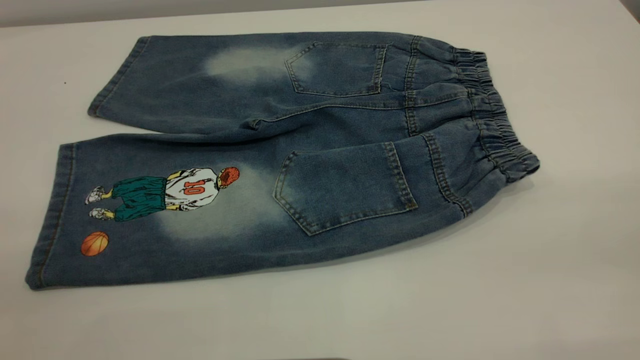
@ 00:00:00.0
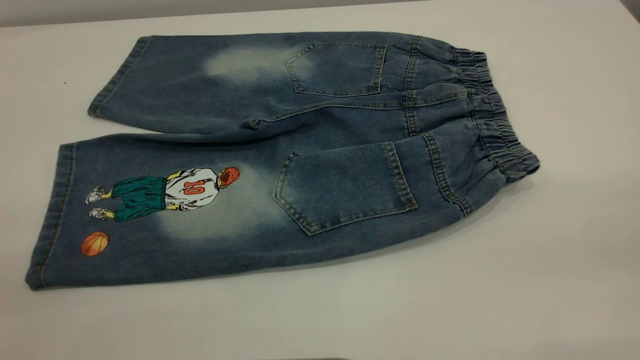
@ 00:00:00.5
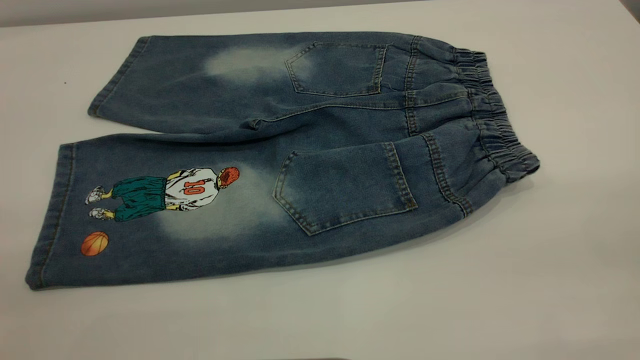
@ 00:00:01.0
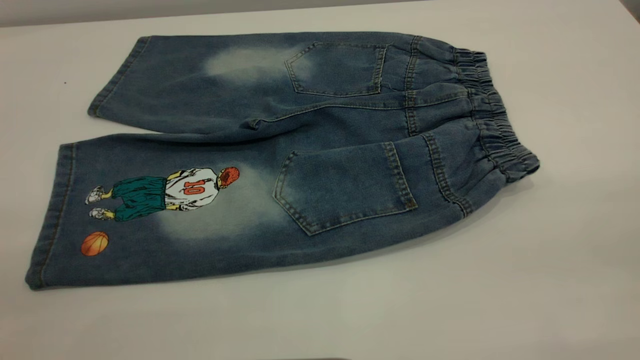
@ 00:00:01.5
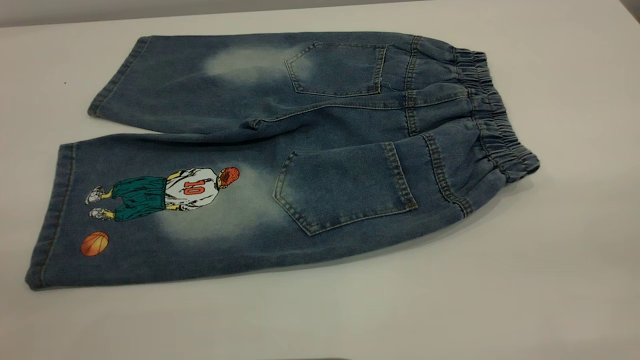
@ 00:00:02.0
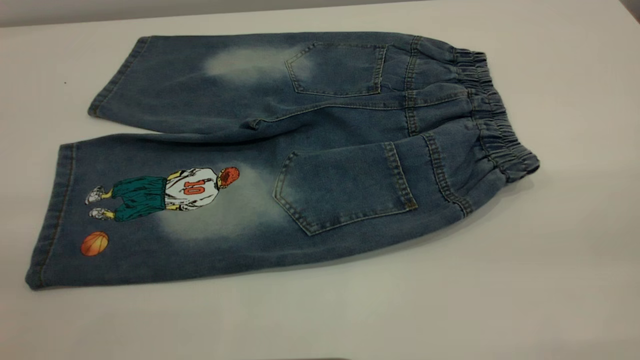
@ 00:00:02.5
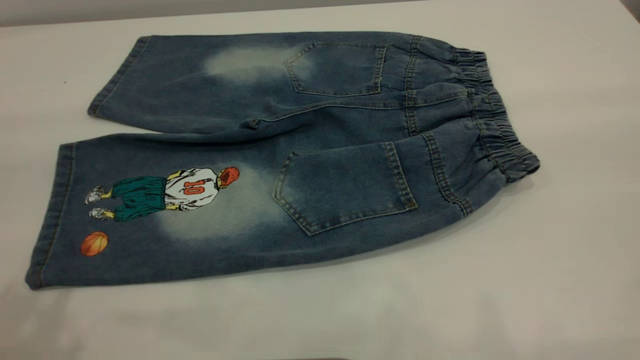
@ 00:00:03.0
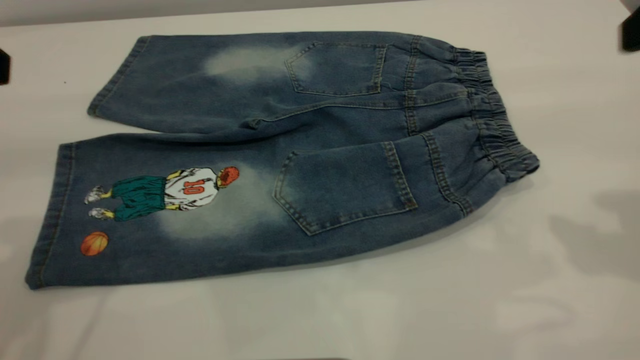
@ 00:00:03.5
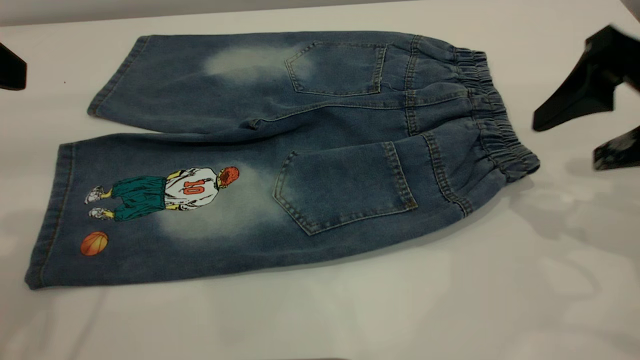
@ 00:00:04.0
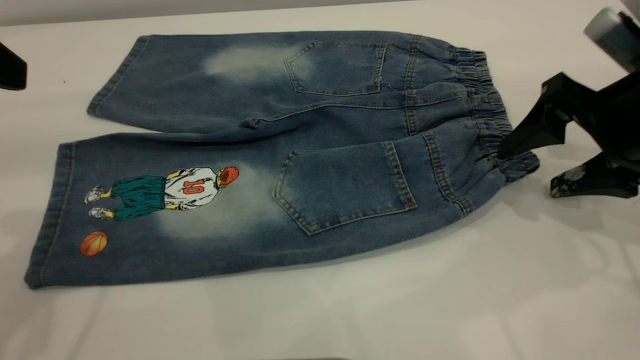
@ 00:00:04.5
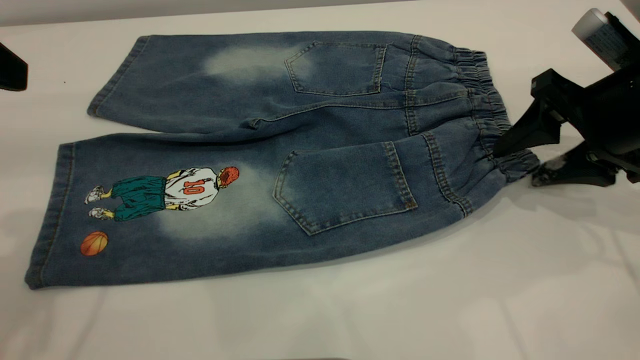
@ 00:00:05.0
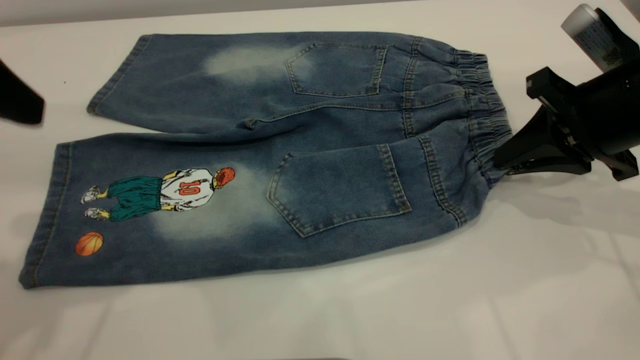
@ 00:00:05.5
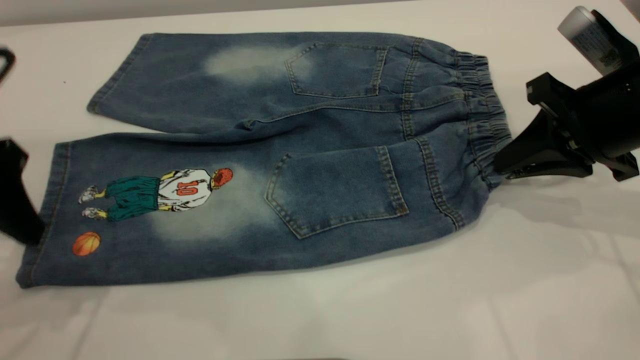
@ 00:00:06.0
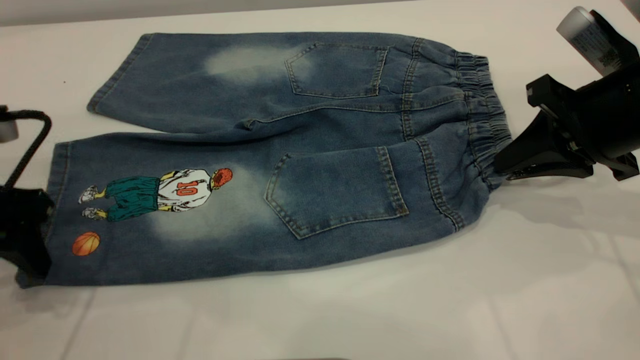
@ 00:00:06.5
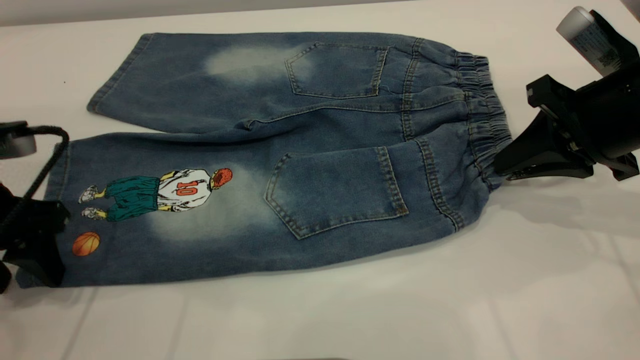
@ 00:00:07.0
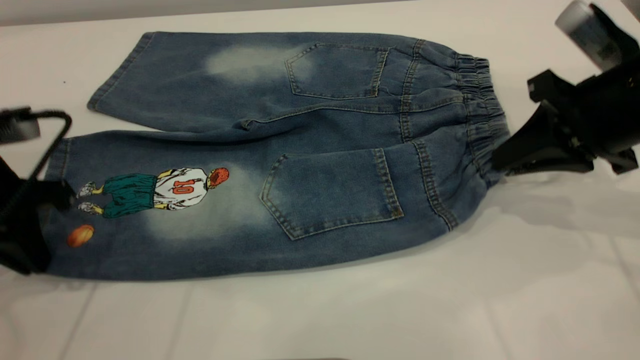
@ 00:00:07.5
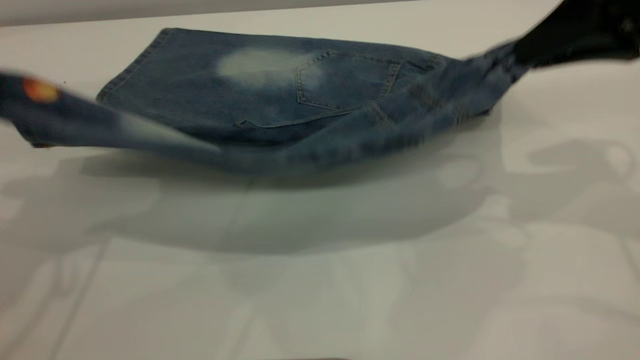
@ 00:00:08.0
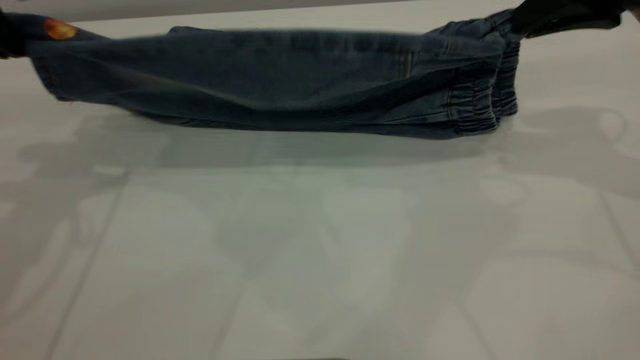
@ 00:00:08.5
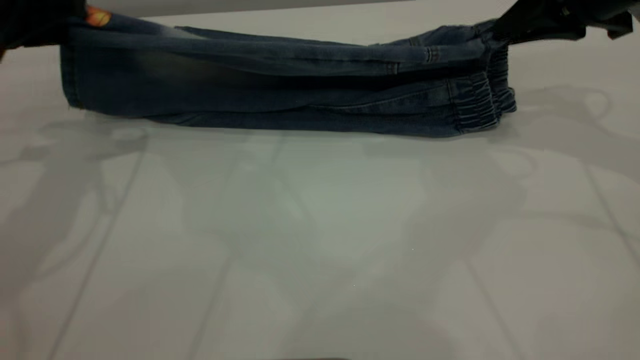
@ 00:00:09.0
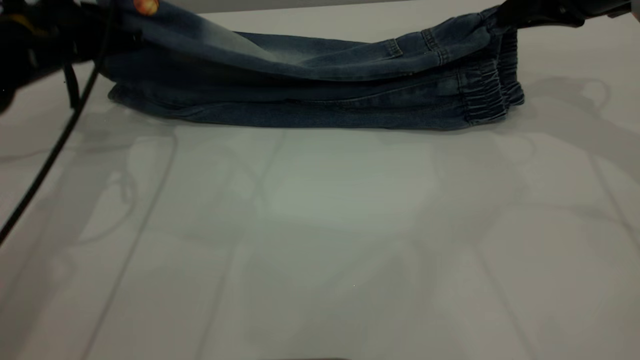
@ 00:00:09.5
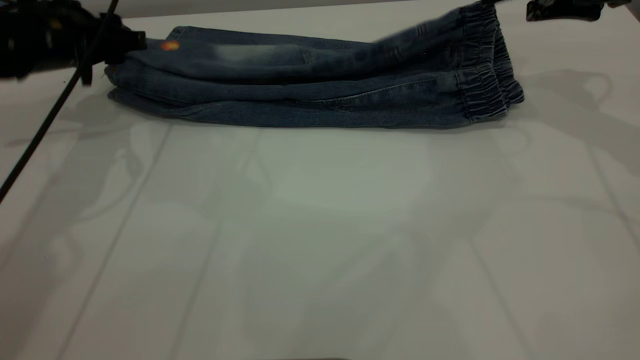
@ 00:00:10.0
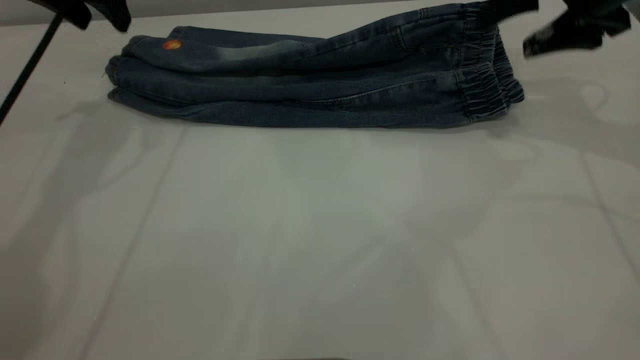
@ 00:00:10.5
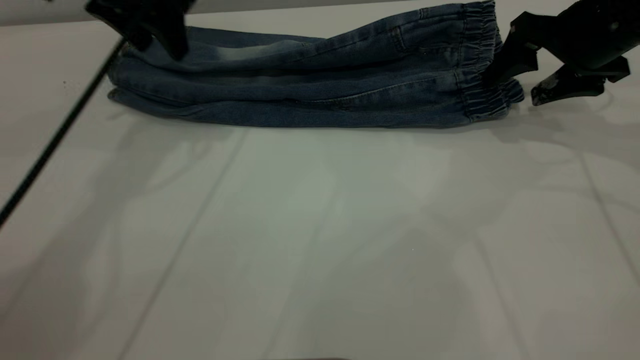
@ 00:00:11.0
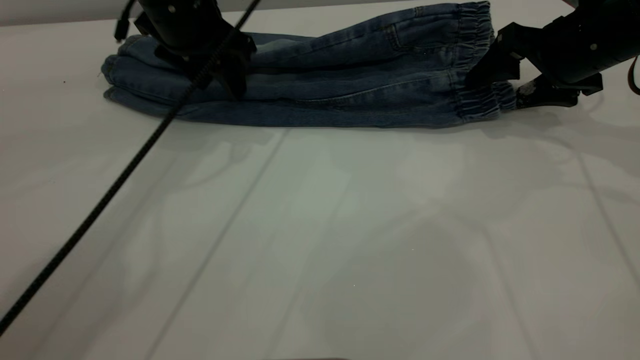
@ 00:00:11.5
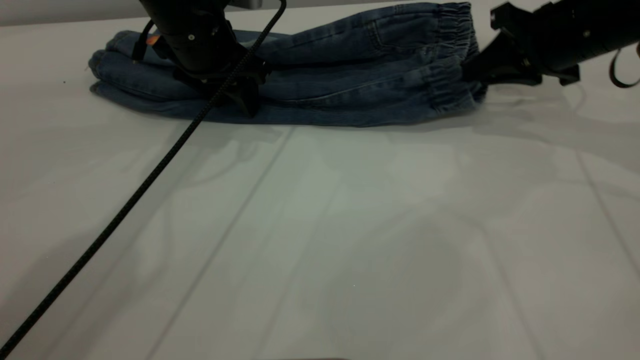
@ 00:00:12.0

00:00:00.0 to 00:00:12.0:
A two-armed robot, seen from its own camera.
Step, 00:00:00.0 to 00:00:10.0: Fold the bottom of the pants upward.
00:00:00.0 to 00:00:02.0: The two grippers keep their place.
00:00:02.0 to 00:00:04.0: The right gripper travels forward and downward by some 30 cm.
00:00:04.0 to 00:00:06.0: The right gripper goes some 5 cm downward, and closes its fingers; the left gripper is displaced downward by roughly 10 cm.
00:00:06.0 to 00:00:08.0: The two grippers go approximately 10 cm upward. The left gripper closes up.
00:00:08.0 to 00:00:10.0: The right gripper goes roughly 10 cm forward, and opens its fingers; the left gripper shifts roughly 20 cm forward and downward, and opens up.
00:00:10.0 to 00:00:12.0: The left gripper shifts about 15 cm to the right. The right gripper heads downward, covering approximately 5 cm, and closes.

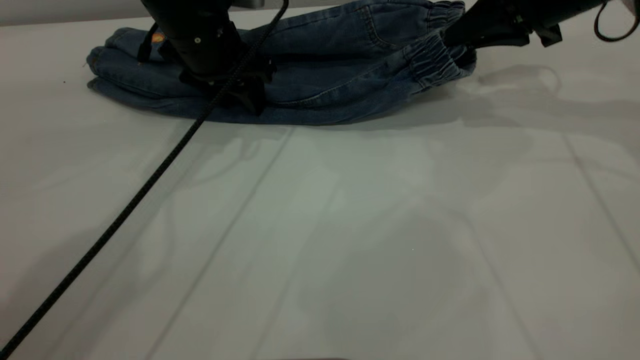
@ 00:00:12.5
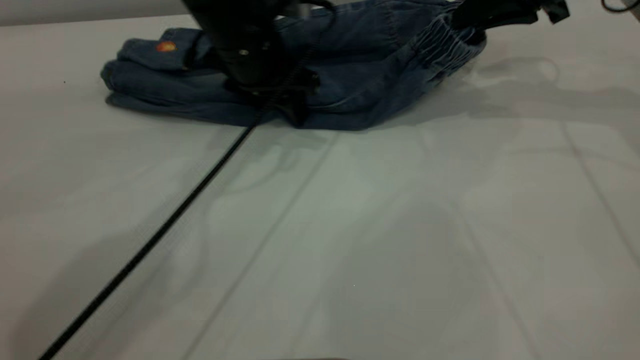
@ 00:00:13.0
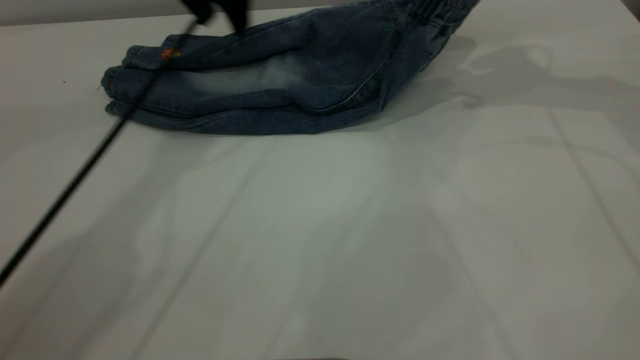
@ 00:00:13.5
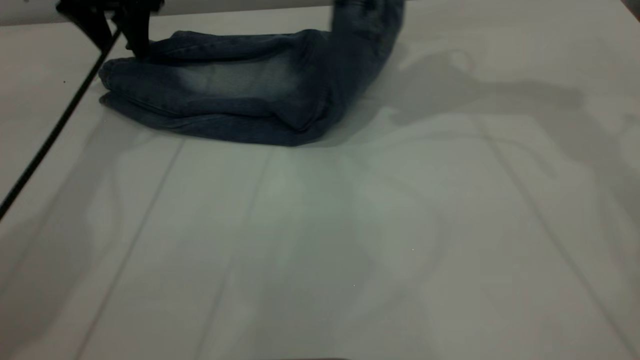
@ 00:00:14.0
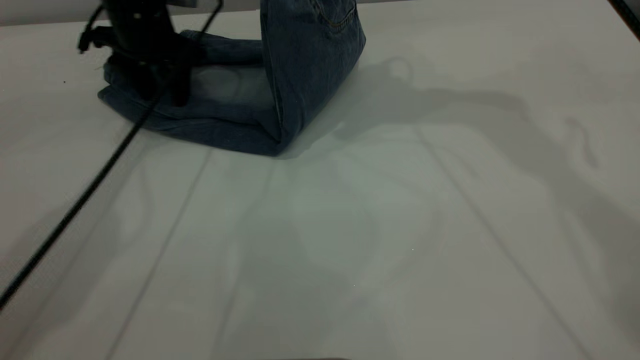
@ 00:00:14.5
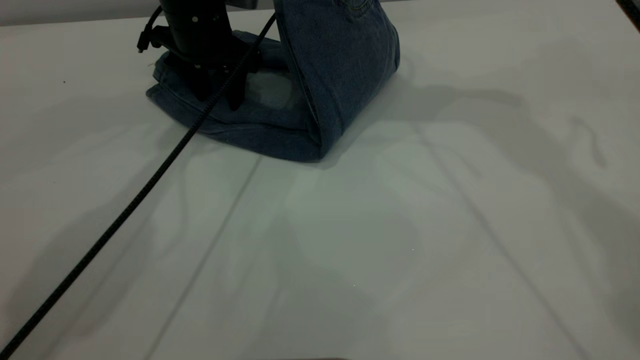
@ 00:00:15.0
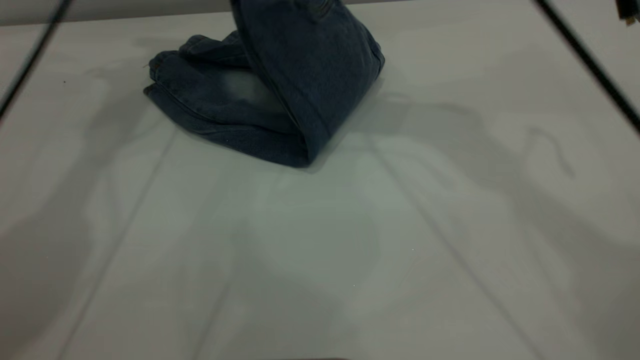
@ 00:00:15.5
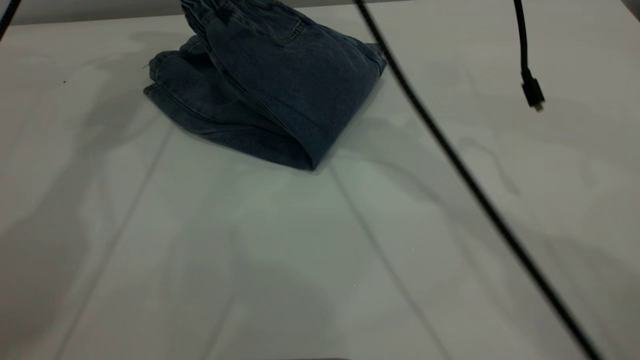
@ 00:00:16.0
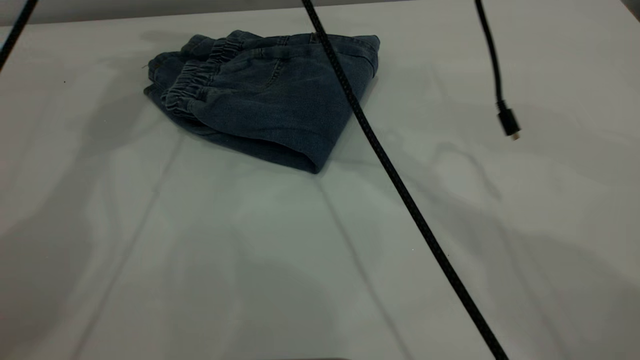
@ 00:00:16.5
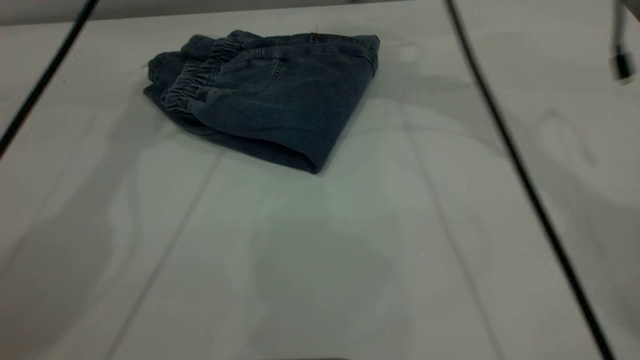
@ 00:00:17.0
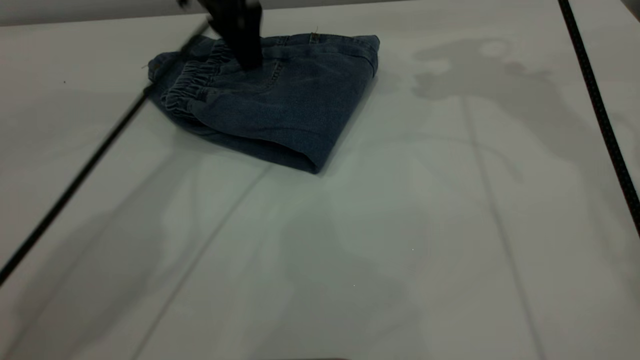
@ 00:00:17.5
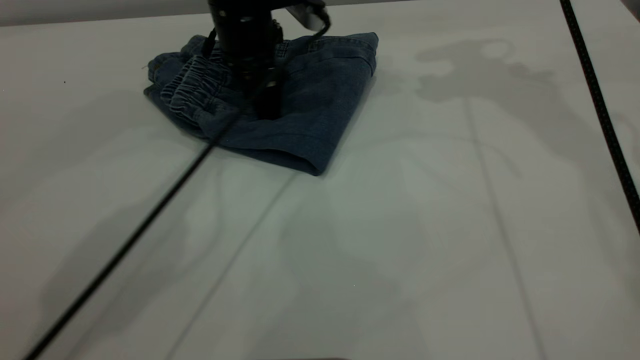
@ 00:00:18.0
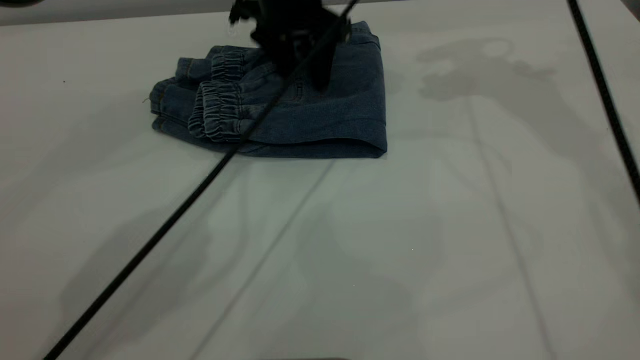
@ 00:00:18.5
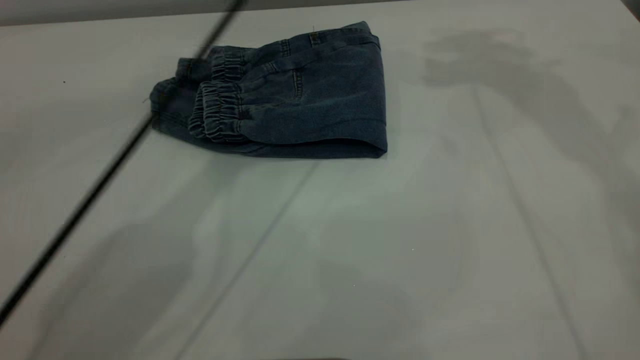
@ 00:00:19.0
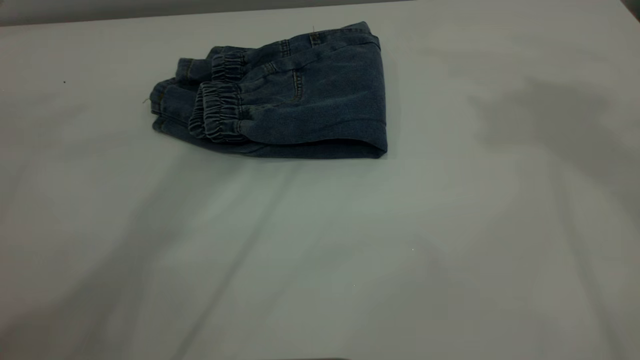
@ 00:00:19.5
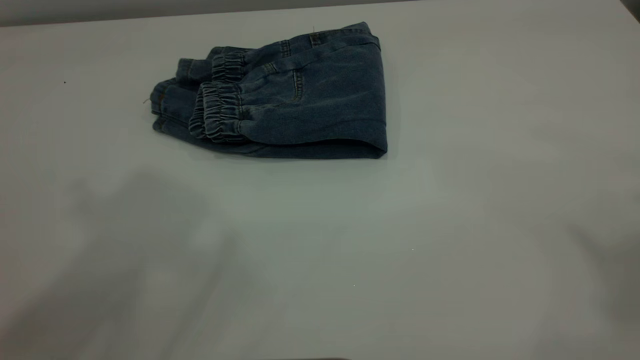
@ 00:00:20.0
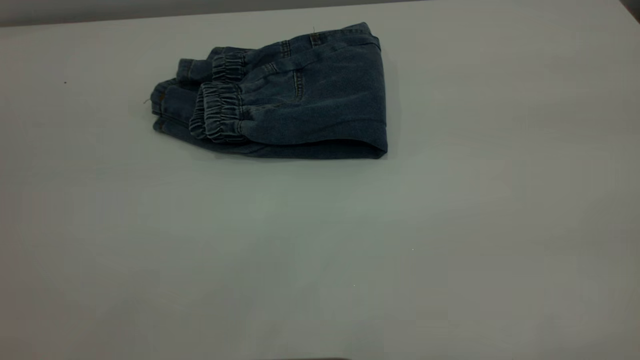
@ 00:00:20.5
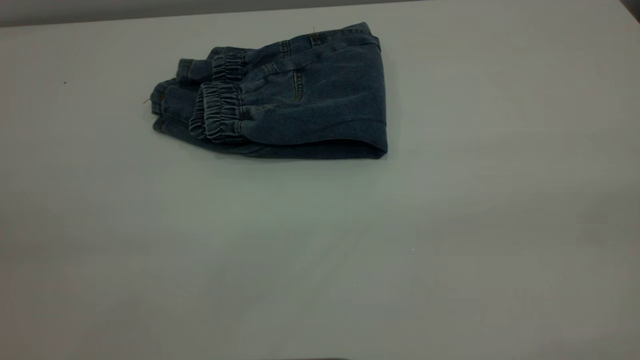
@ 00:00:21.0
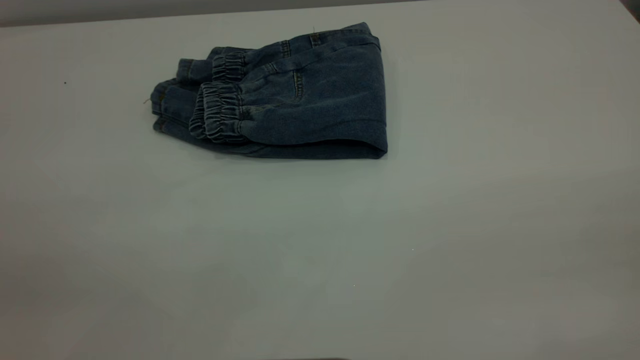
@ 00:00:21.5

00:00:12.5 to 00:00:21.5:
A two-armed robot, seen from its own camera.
Step, 00:00:12.5 to 00:00:16.5: Fold your pants from right to left.
00:00:12.5 to 00:00:14.5: The right gripper travels to the left and upward by about 20 cm; the left gripper moves left and right over approximately 15 cm, changing direction 2 times.
00:00:14.5 to 00:00:17.0: The right gripper shifts about 10 cm downward, moves roughly 15 cm to the left and comes back, and opens its fingers. Meanwhile the left gripper travels upward by approximately 15 cm.
00:00:17.0 to 00:00:19.5: The left gripper goes approximately 25 cm upward and backward. The right gripper heads upward and backward, covering approximately 40 cm.
